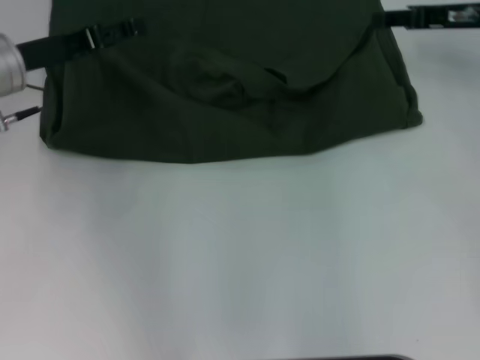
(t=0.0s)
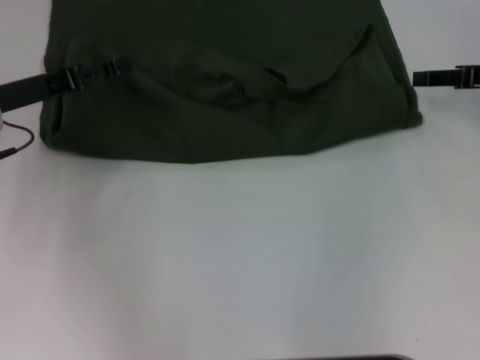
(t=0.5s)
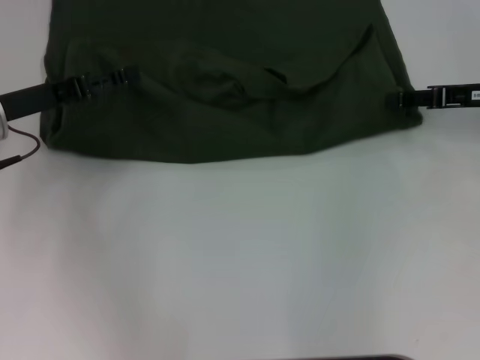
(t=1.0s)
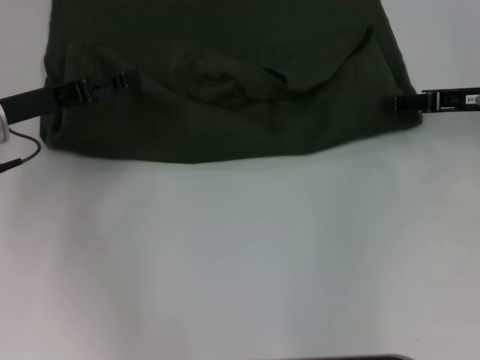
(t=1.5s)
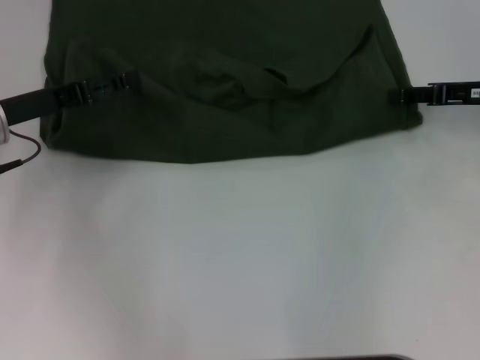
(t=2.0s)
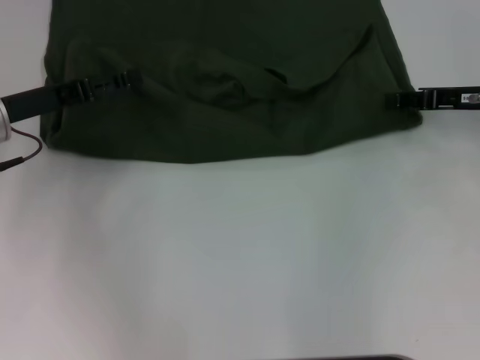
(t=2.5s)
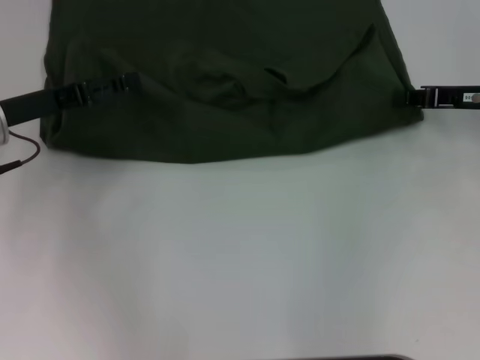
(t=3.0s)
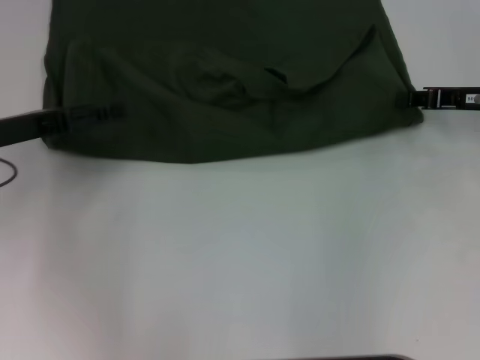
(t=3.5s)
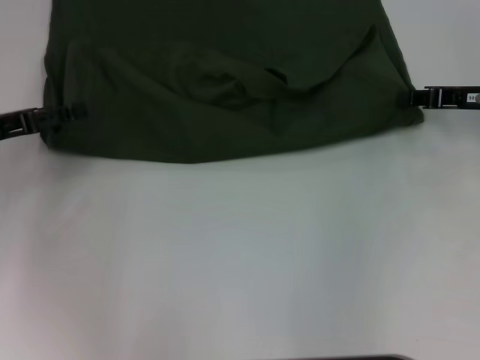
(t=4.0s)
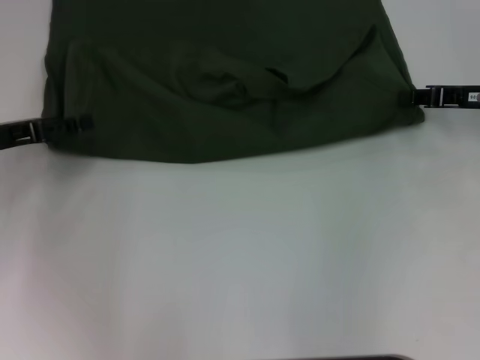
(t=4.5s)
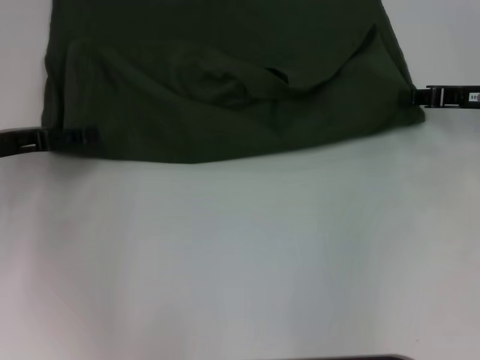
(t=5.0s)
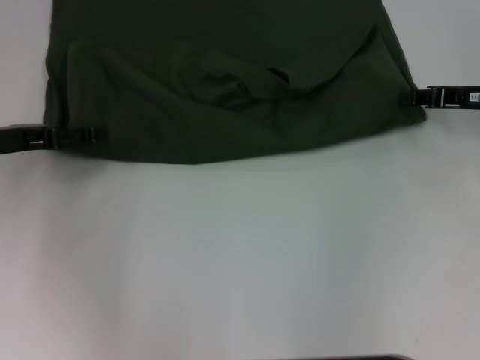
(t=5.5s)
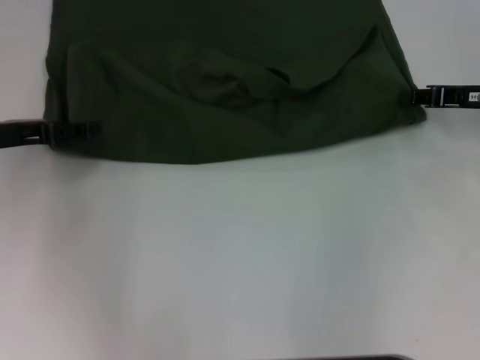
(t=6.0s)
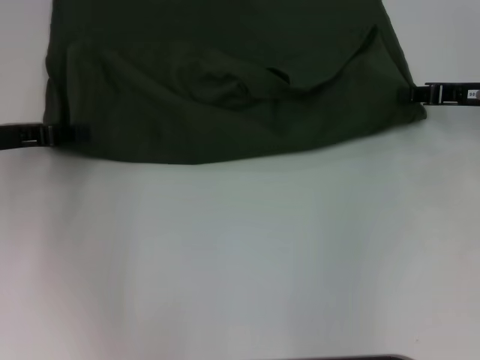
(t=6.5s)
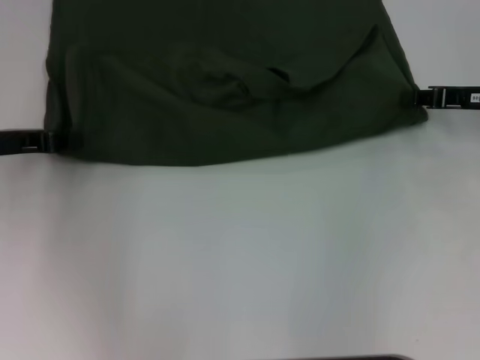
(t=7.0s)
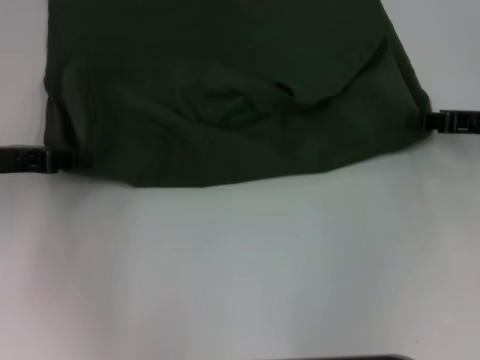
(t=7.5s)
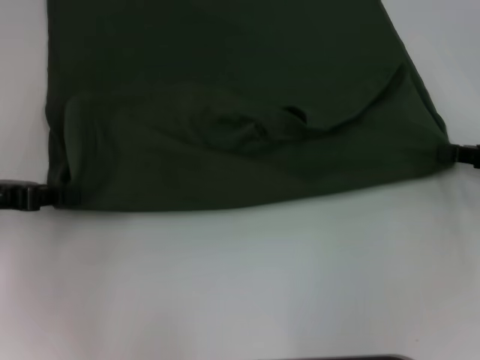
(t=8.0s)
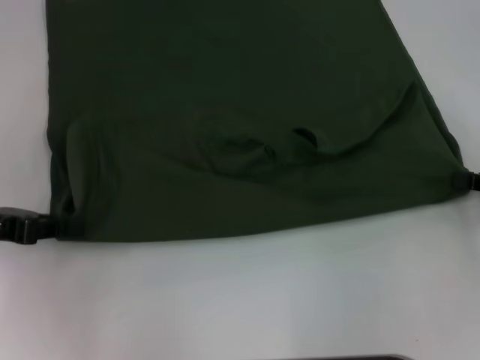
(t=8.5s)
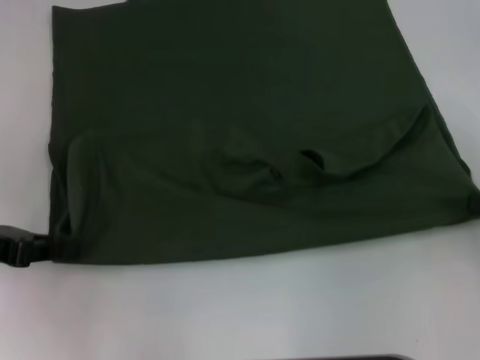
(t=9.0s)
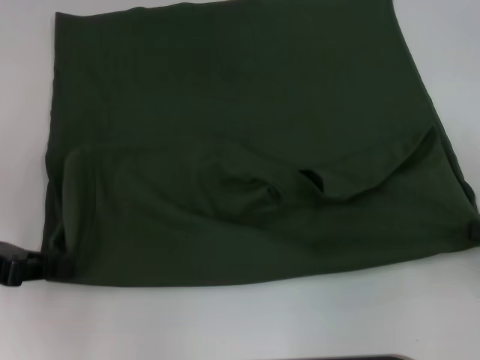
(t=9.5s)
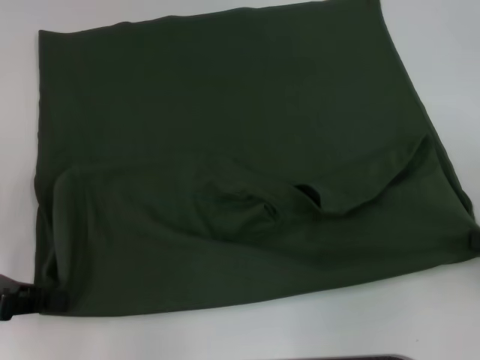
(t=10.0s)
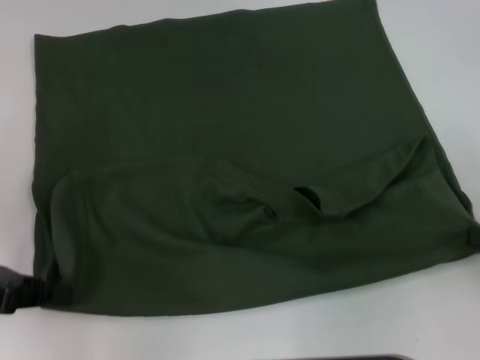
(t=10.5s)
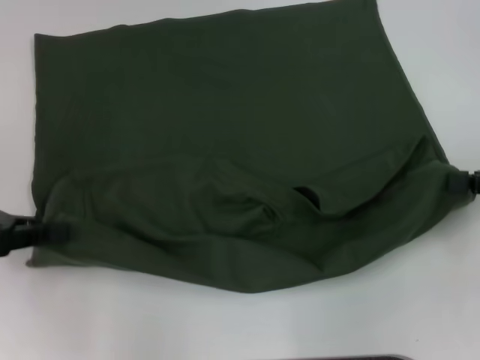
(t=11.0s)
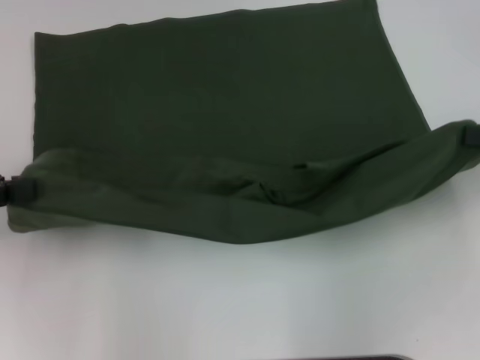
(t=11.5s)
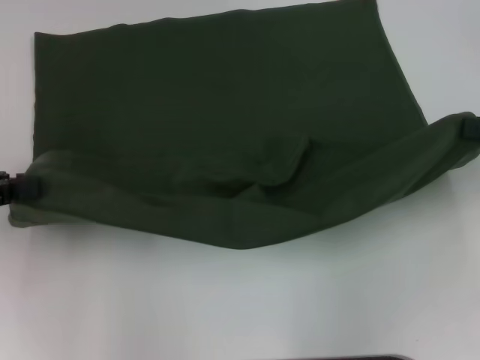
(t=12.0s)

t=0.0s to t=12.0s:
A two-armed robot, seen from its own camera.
Step, t=0.0s to t=10.0s: Pull the clothes with your left hand.
Step, t=0.0s to t=10.0s: Pull the clothes with your right hand.
t=0.0s to t=2.0s: The right gripper shifts some 5 cm backward. Meanwhile the left gripper ends up roughly 5 cm from where it was.
t=2.0s to t=4.0s: The right gripper closes; the left gripper travels to the left by approximately 5 cm.
t=4.0s to t=6.0s: The grippers stay close to where they were, moving slightly.
t=6.0s to t=8.0s: The left gripper moves about 5 cm, and closes. Meanwhile the right gripper goes some 5 cm backward.
t=8.0s to t=10.0s: The grippers both shift backward by about 5 cm.
t=10.0s to t=12.0s: The right gripper moves forward and upward, about 10 cm. Meanwhile the left gripper shifts approximately 5 cm upward.

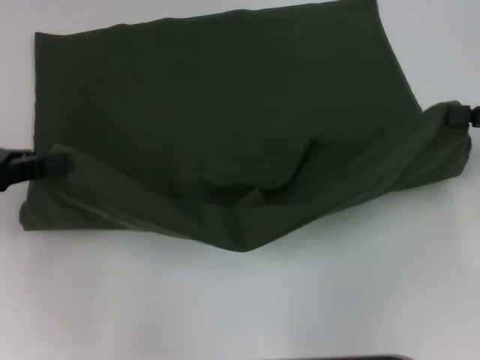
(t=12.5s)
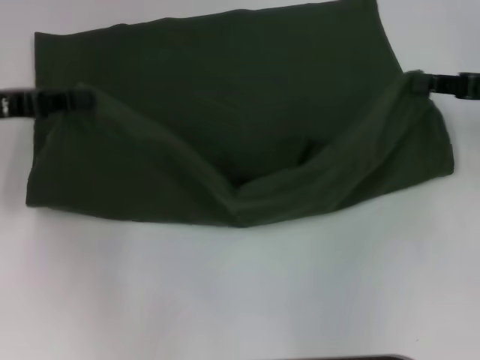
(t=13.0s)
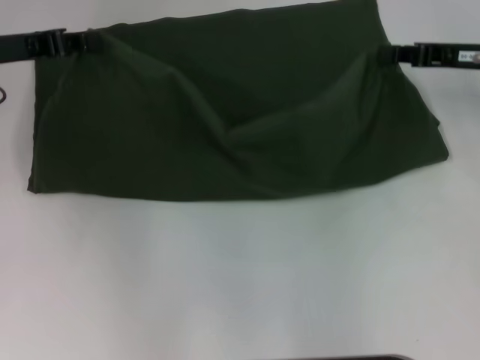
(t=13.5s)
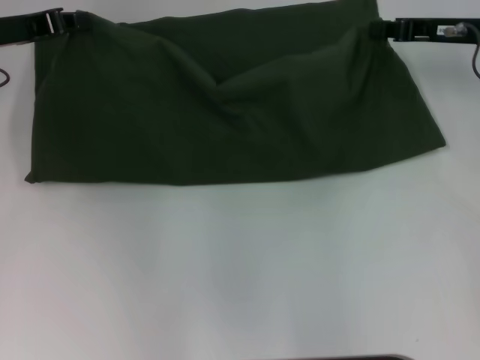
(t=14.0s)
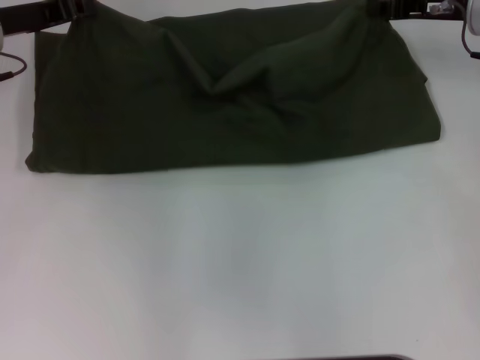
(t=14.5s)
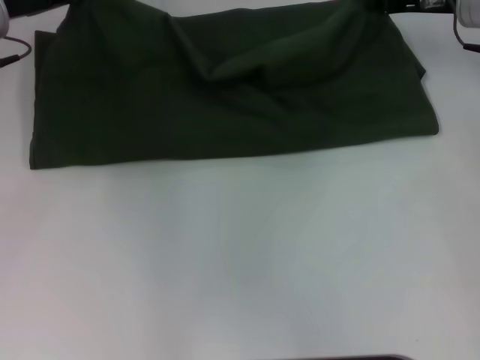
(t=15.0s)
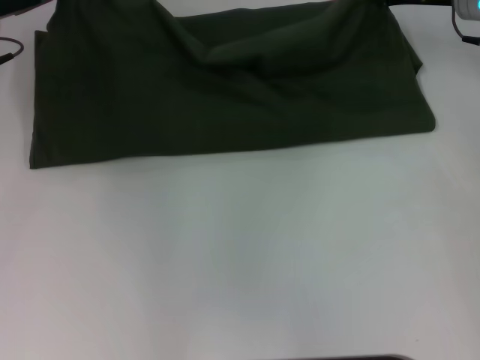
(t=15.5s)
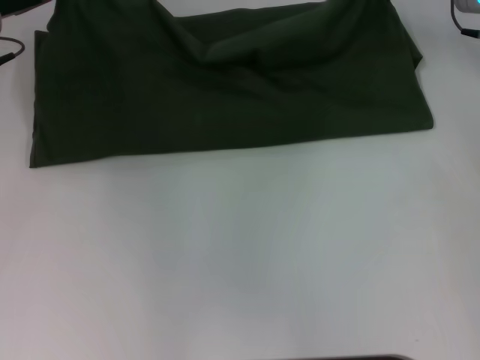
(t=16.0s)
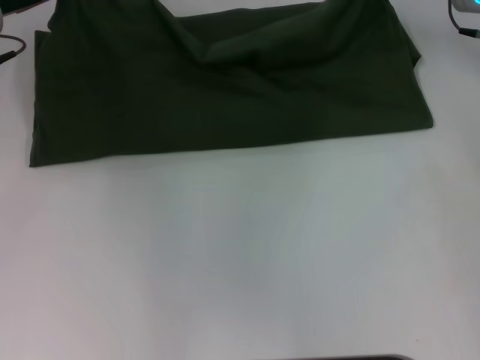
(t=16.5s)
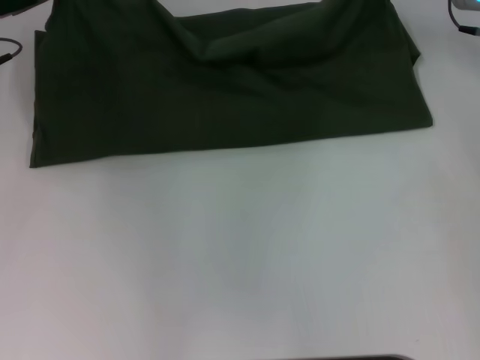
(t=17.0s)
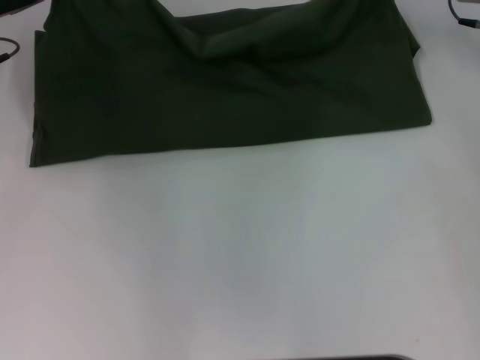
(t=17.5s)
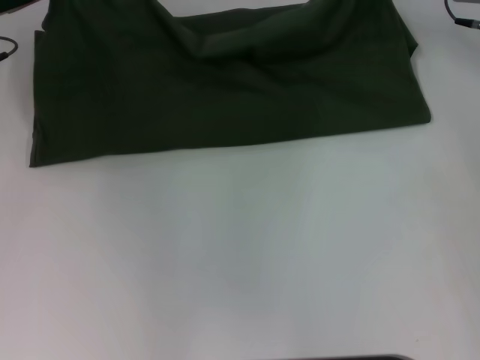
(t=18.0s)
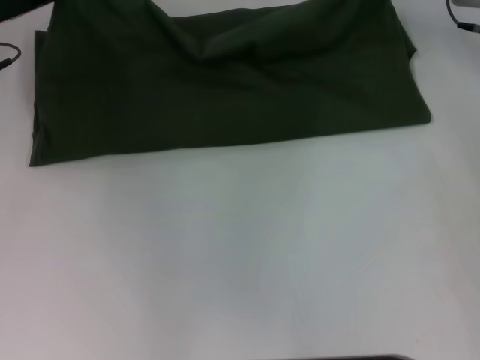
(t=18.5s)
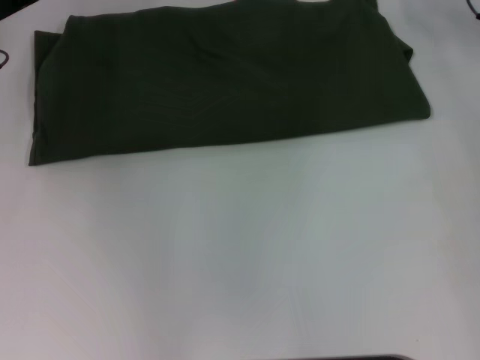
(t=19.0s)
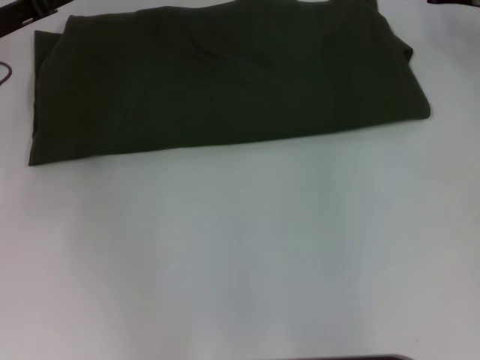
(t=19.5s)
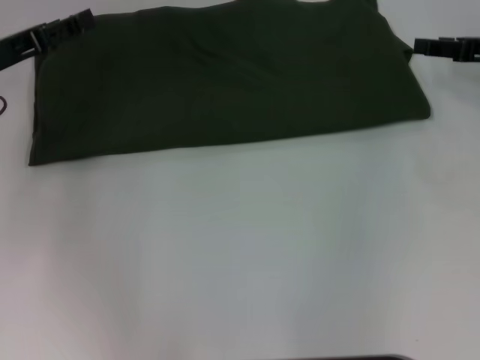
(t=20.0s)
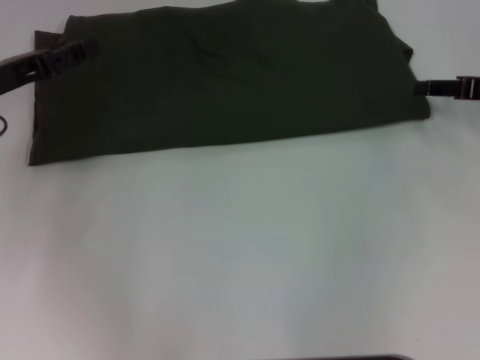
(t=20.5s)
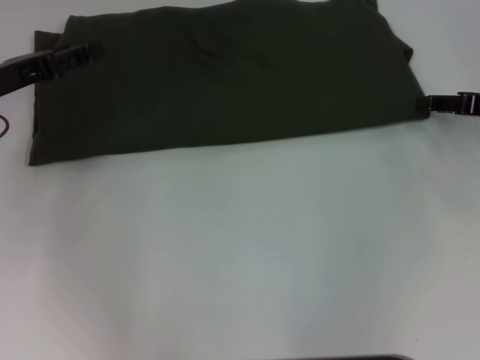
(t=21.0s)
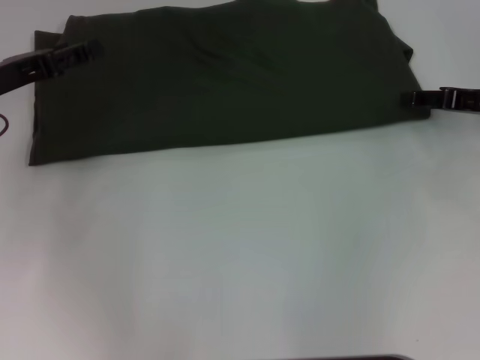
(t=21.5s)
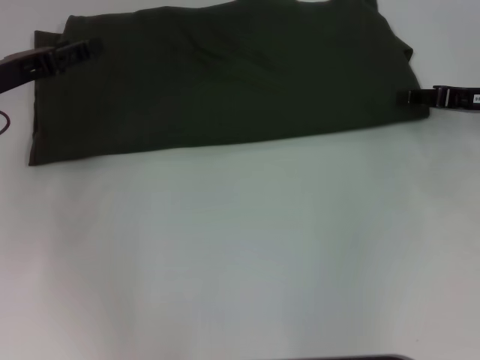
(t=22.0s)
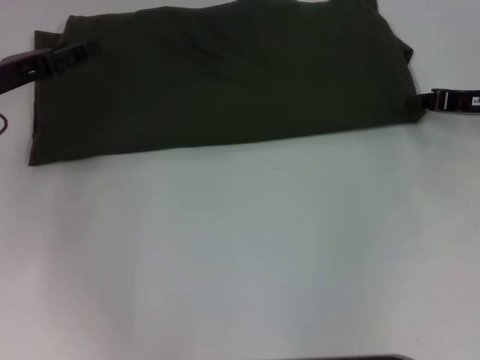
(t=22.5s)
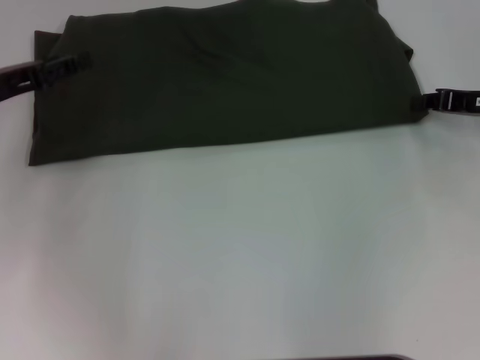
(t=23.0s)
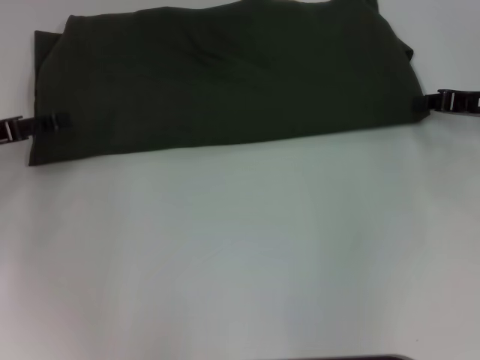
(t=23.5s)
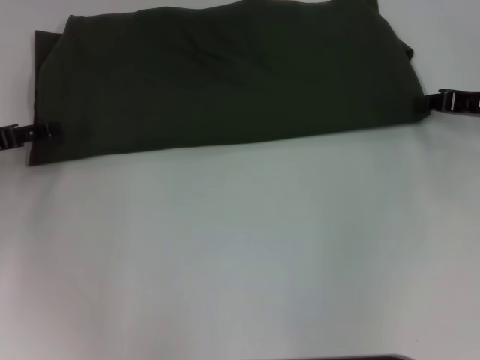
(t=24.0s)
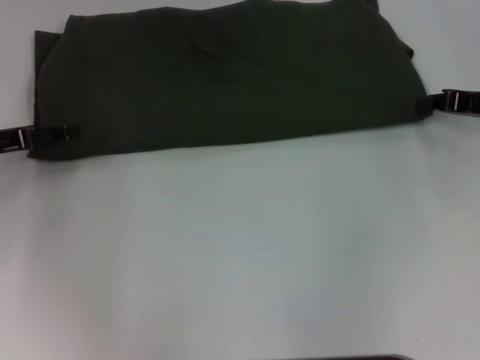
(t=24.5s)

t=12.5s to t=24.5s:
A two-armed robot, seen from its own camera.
Step, t=12.5s to t=18.5s: Fold the clothes with your left hand.
Step, t=12.5s to t=18.5s: Fold the clothes with your right hand.
t=12.5s to t=14.5s: The left gripper travels forward and to the right by some 15 cm. Meanwhile the right gripper heads forward and to the left, covering about 15 cm.
t=14.5s to t=16.5s: The grippers make only small movements.
t=16.5s to t=18.5s: Both grippers stay put.
t=18.5s to t=20.5s: The right gripper heads backward and to the right, covering approximately 15 cm, and opens up. The left gripper moves backward, roughly 10 cm, and opens up.
t=20.5s to t=22.5s: The right gripper closes its fingers.

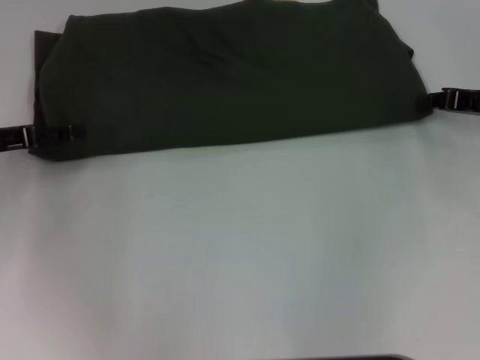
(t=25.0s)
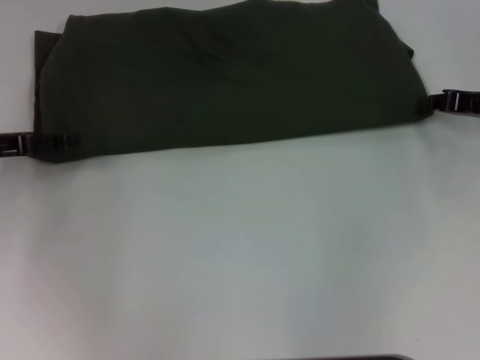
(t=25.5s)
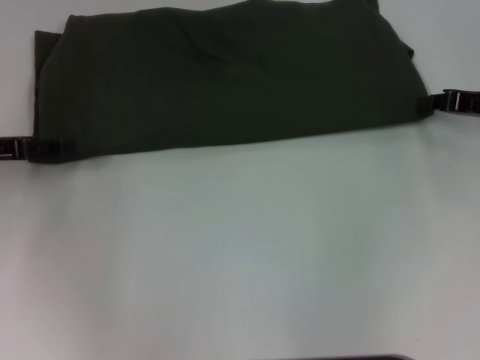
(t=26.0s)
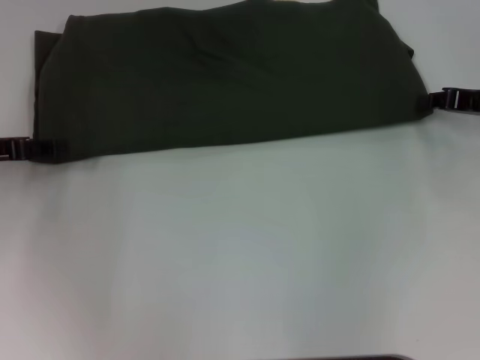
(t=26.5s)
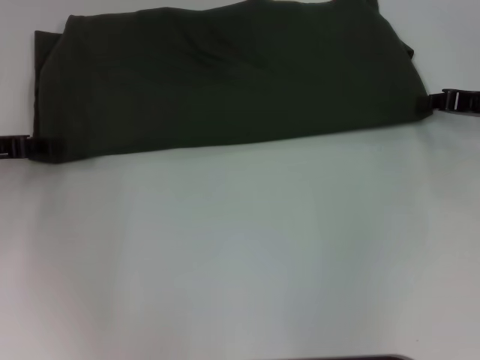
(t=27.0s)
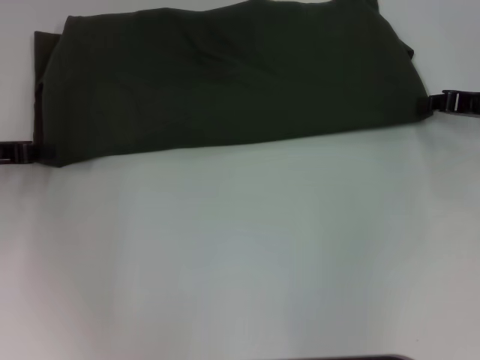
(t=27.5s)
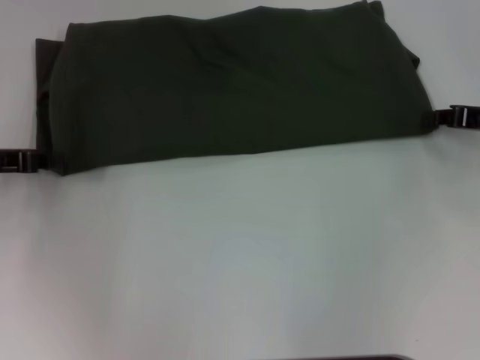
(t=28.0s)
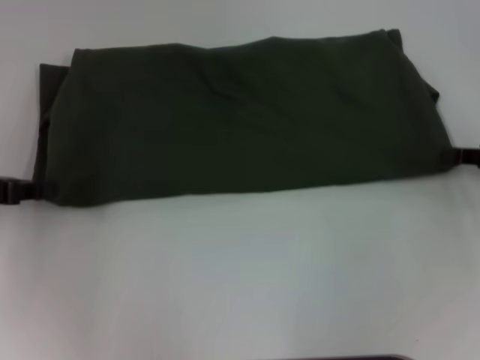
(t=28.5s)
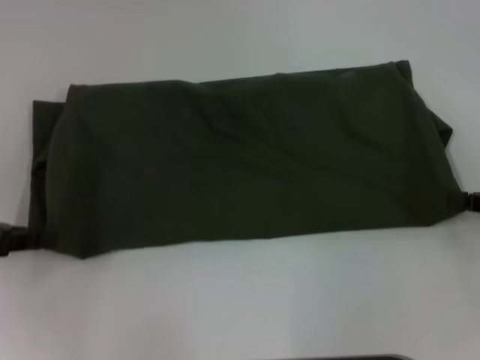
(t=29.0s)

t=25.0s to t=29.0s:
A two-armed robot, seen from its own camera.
t=27.0s to t=29.0s: The right gripper moves backward, roughly 10 cm. The left gripper shifts roughly 5 cm backward, and closes up.
